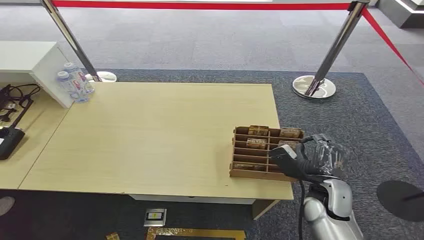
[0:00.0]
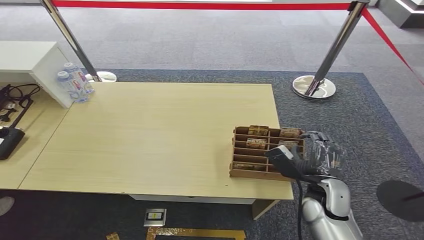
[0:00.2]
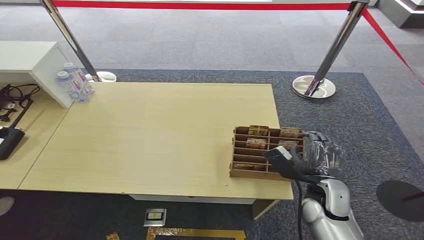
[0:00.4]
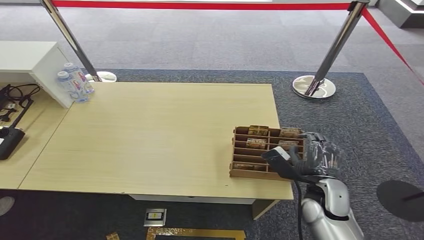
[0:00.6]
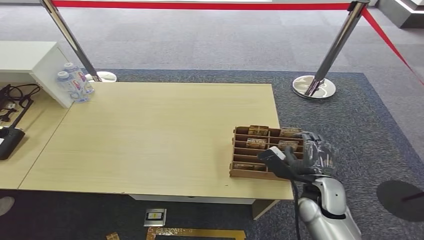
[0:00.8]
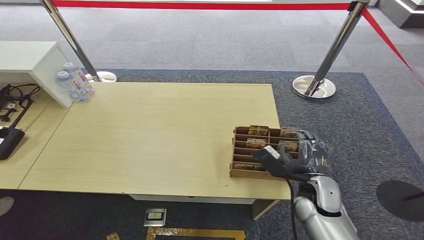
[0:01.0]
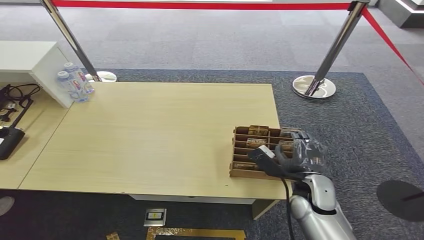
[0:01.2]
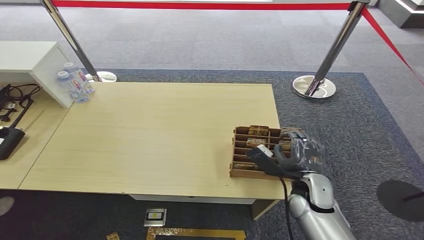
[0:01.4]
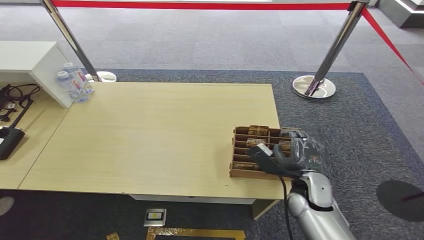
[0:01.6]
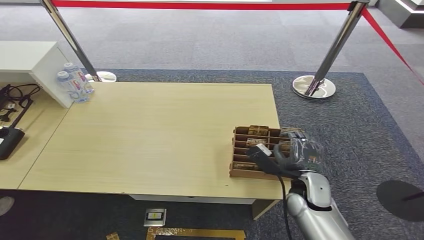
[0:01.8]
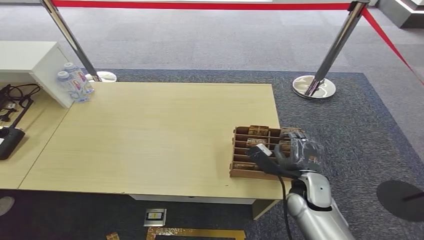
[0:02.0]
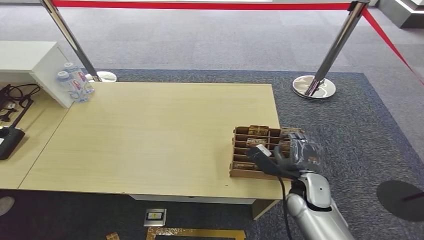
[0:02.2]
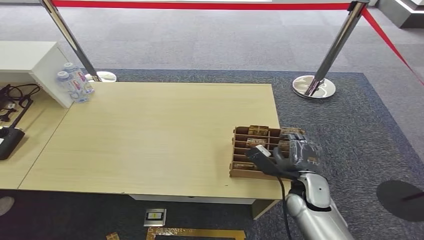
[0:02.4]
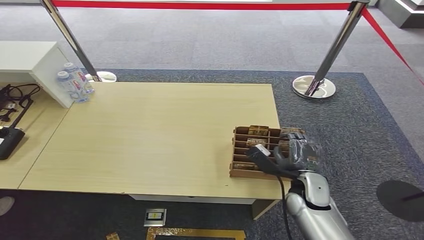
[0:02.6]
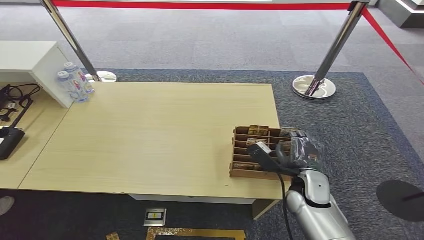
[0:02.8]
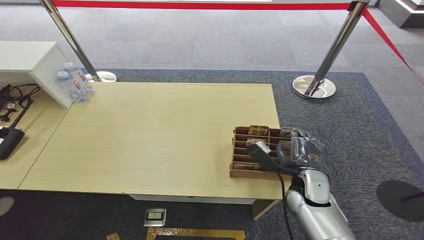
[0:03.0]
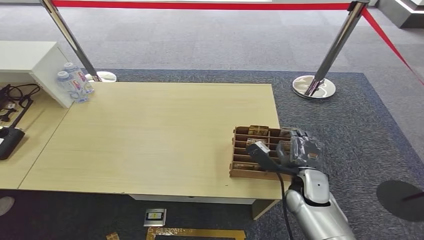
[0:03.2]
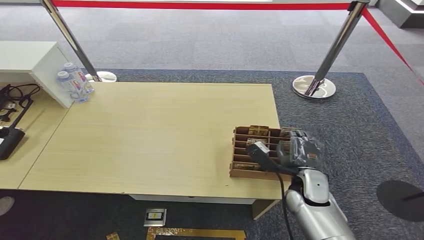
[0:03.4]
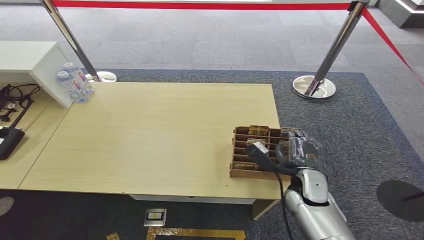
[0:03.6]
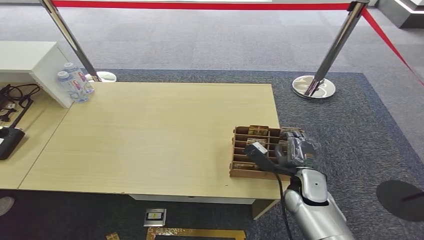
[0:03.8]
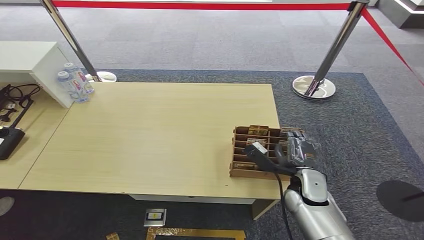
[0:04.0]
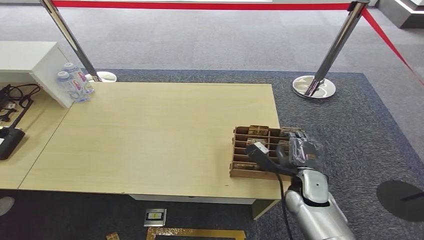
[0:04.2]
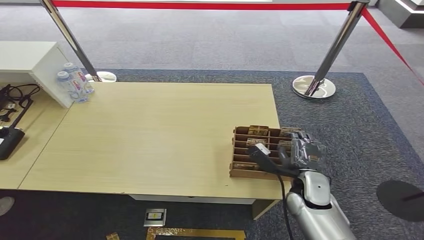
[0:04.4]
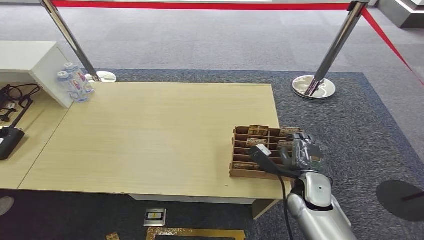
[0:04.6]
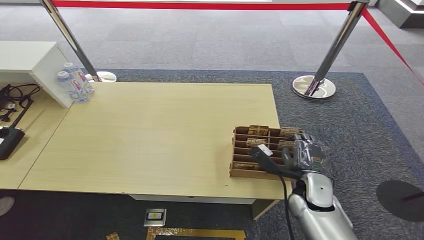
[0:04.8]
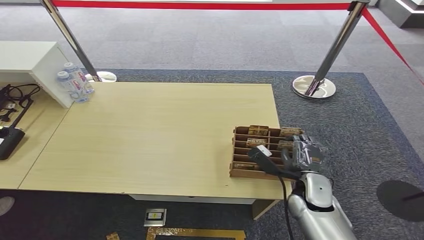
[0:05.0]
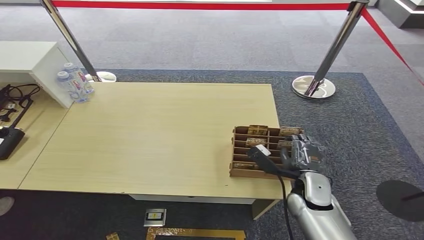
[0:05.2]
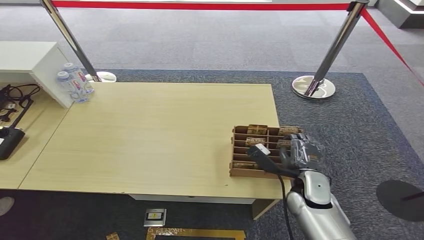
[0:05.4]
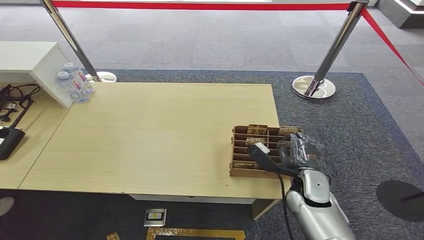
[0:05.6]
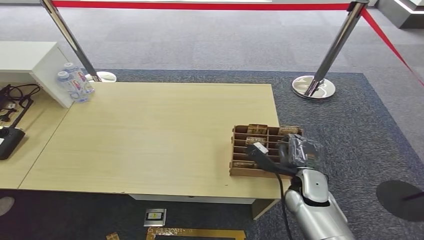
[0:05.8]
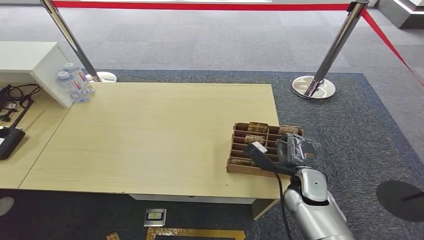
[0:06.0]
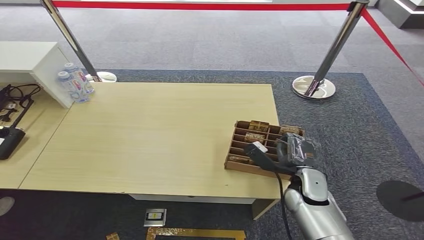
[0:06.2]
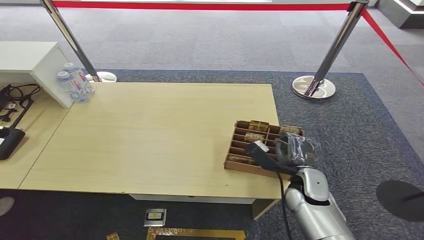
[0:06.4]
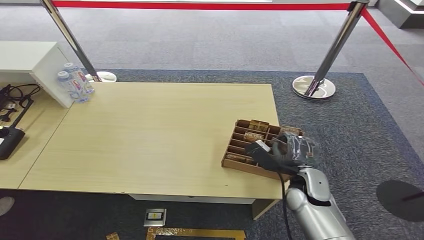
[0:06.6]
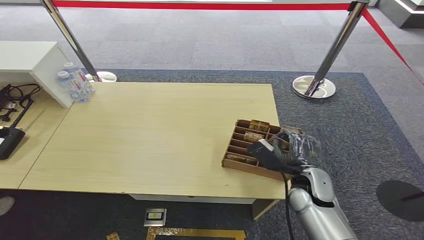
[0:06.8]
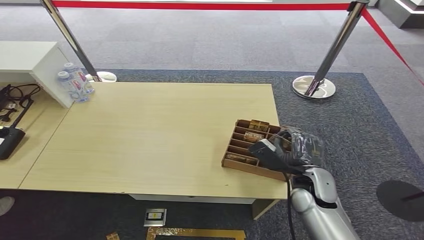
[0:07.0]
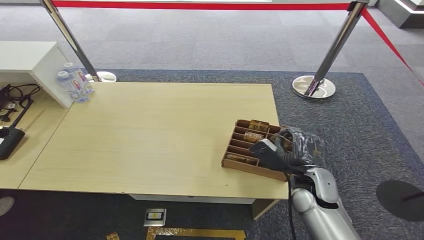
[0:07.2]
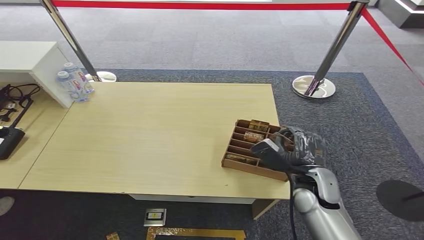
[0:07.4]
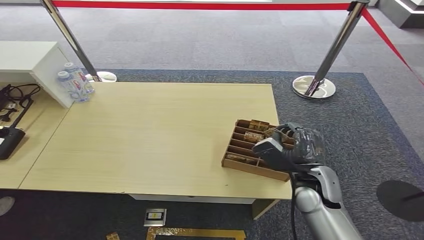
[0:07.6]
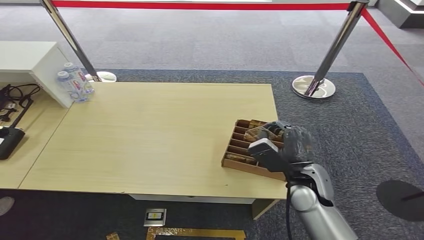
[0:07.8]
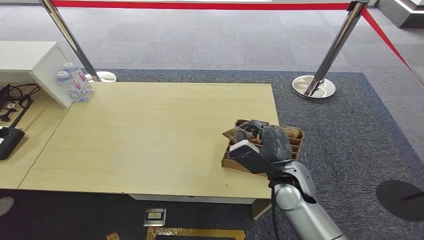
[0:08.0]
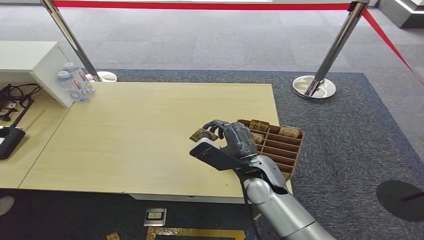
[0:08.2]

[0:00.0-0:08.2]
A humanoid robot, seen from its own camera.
Step, 0:00.0 to 0:08.2: Pick up the key card from the card box.
0:01.6 to 0:05.0: Neither hand changes place.
0:05.0 to 0:06.6: The hands make only small movements.
0:06.6 to 0:08.2: The right hand is displaced to the left and upward by approximately 10 cm.

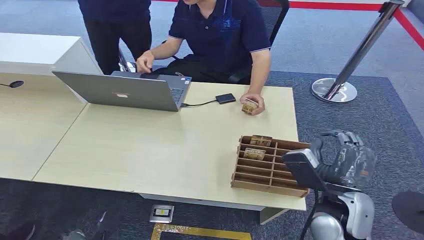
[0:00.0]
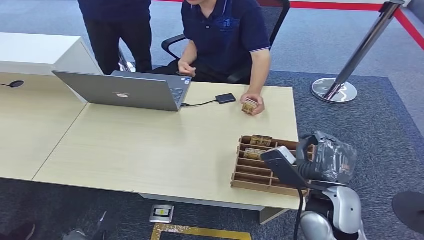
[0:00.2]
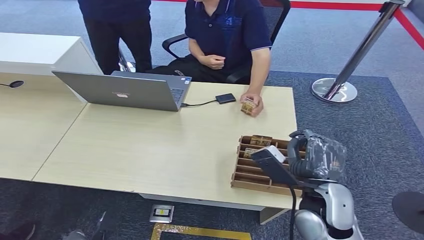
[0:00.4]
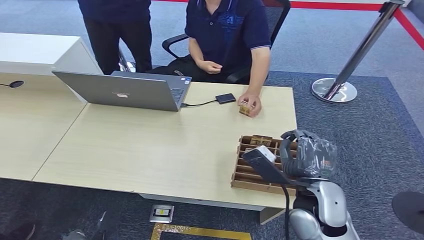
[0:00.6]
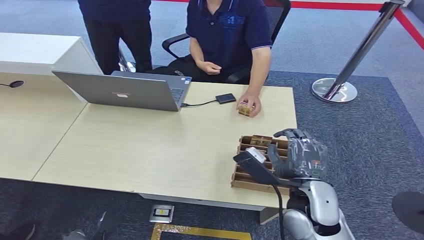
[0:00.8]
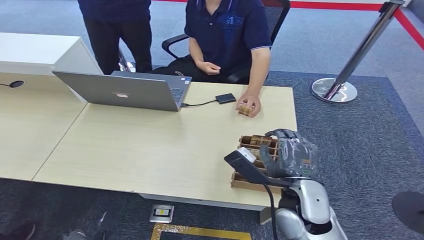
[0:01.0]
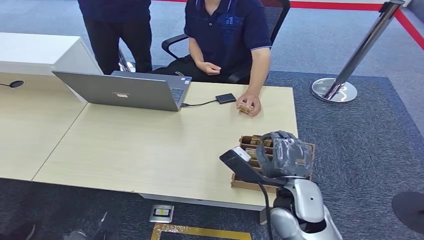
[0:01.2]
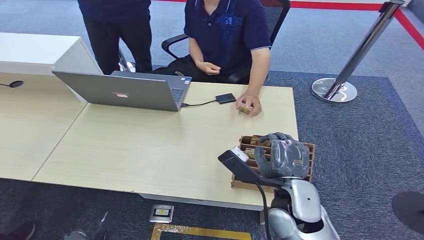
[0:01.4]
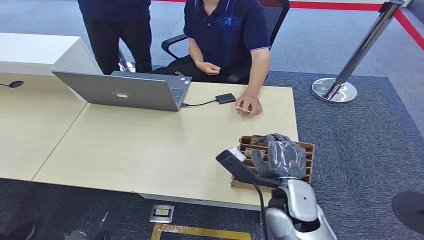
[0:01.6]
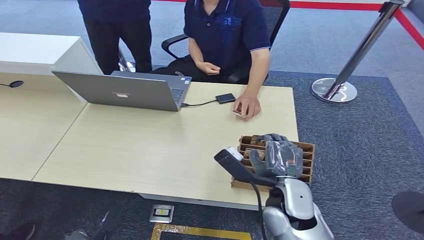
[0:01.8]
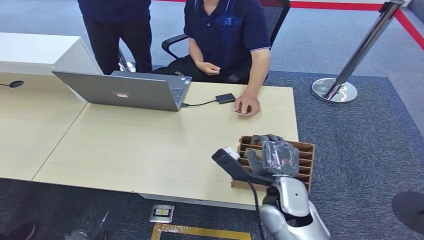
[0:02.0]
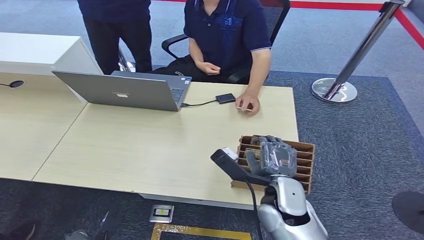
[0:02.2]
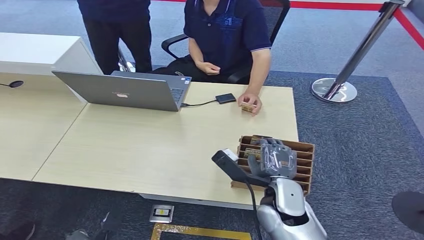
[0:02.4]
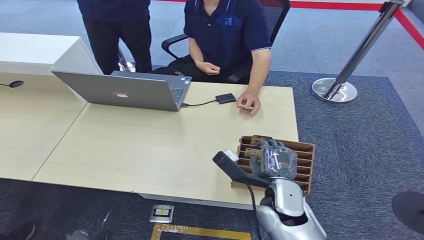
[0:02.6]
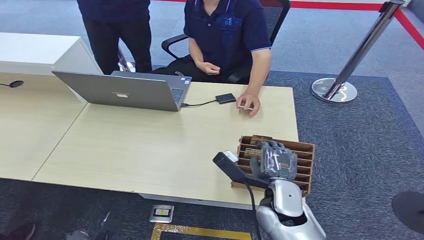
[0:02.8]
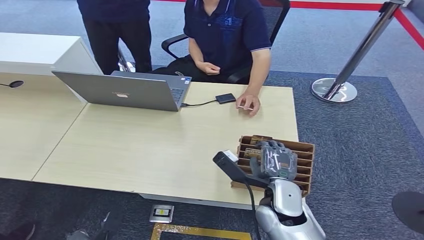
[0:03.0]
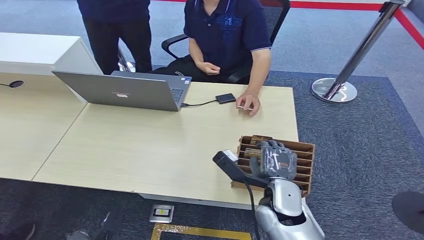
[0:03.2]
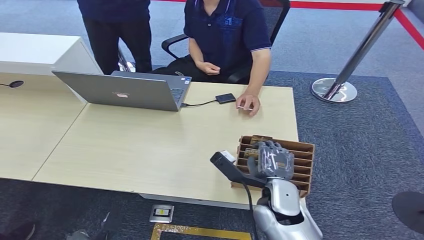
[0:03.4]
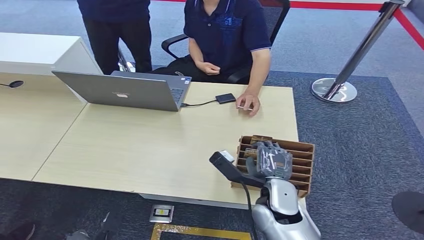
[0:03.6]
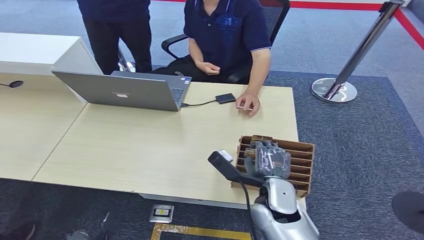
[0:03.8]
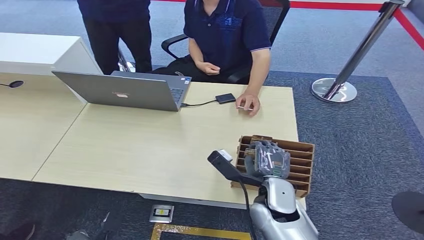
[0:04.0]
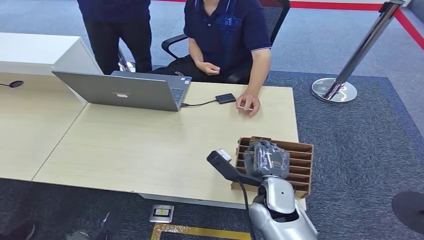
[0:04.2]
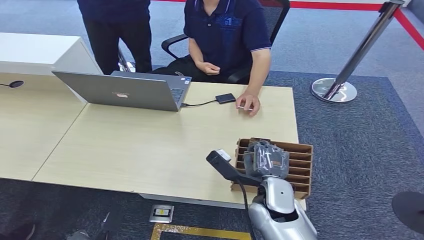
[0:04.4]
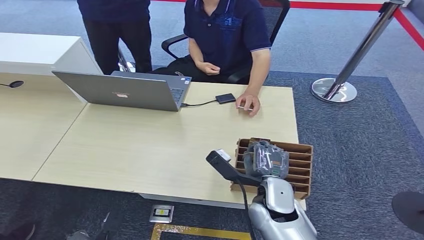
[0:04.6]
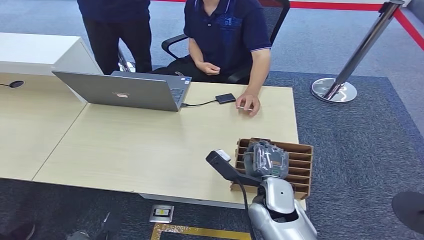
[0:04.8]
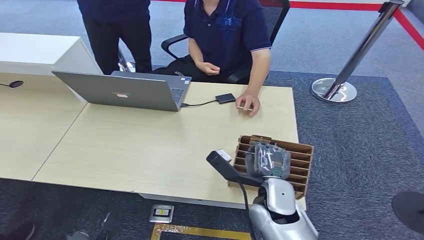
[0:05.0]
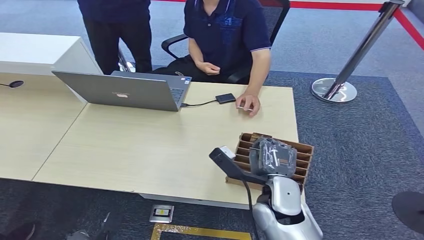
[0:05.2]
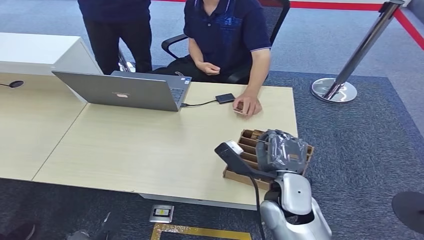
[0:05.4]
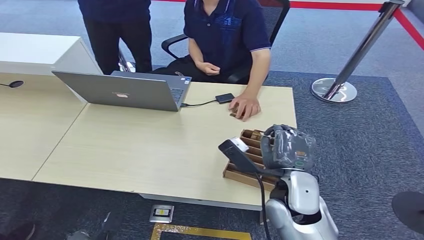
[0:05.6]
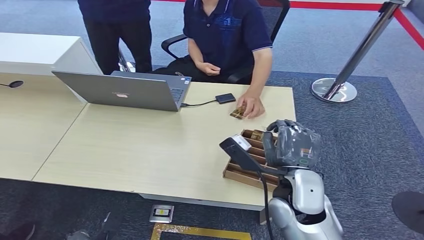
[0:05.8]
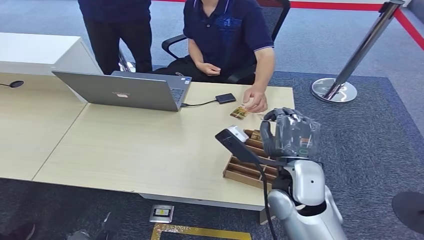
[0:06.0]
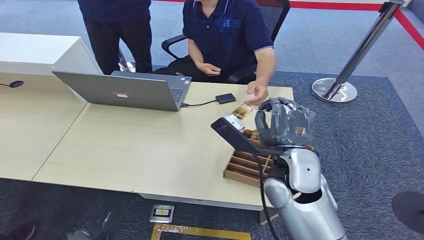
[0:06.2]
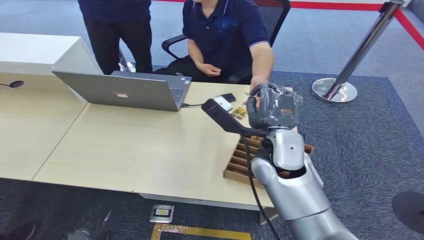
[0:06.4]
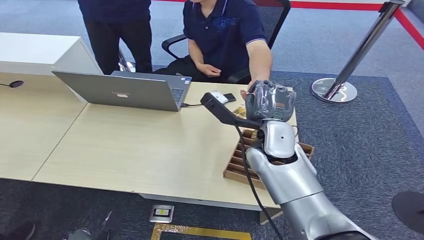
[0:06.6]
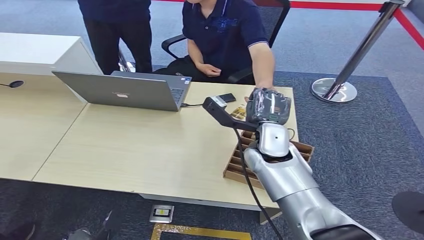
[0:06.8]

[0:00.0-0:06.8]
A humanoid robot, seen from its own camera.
Step, 0:00.0 to 0:04.8: Pick up the key card from the card box.
Step, 0:05.2 to 0:06.8: Hand the key card to the target.
0:01.4 to 0:02.8: The hands move only a little.
0:02.8 to 0:04.0: Both hands stay about where they are.
0:04.0 to 0:05.4: The hands stay close to where they were, moving slightly.
0:05.4 to 0:06.8: The right hand heads forward and upward, covering some 15 cm.

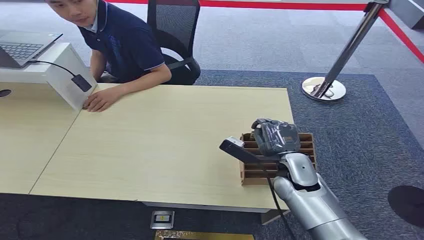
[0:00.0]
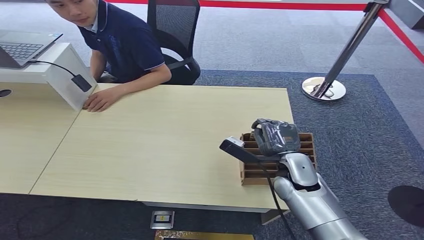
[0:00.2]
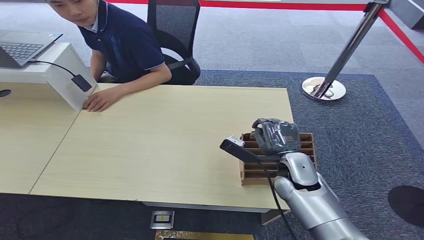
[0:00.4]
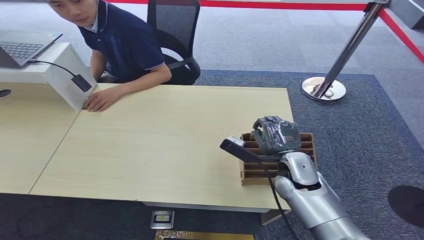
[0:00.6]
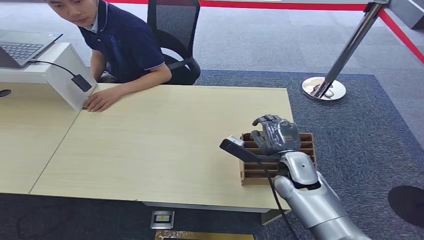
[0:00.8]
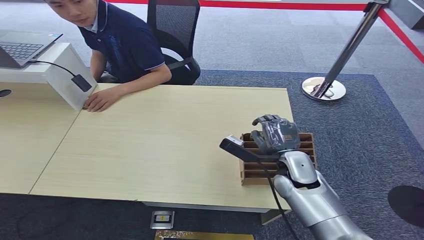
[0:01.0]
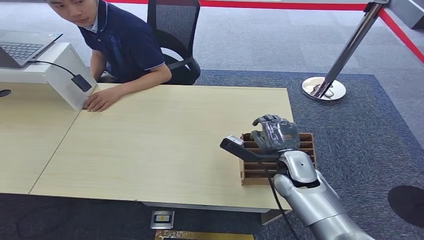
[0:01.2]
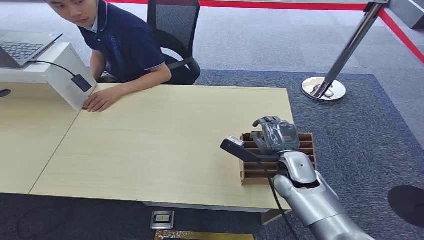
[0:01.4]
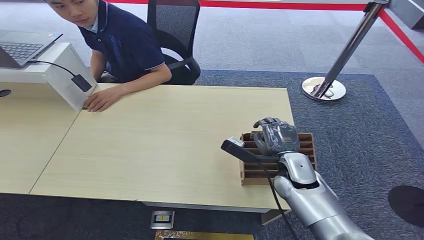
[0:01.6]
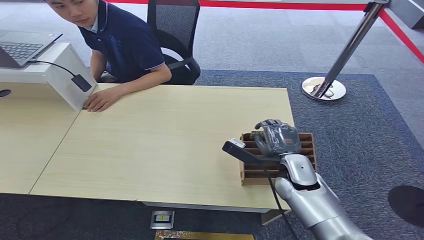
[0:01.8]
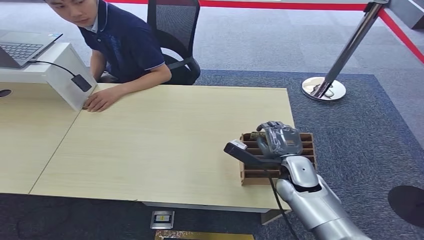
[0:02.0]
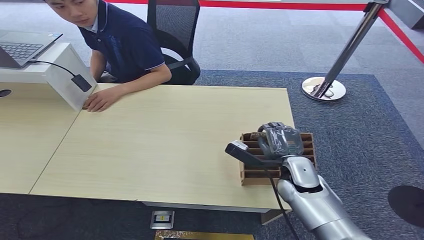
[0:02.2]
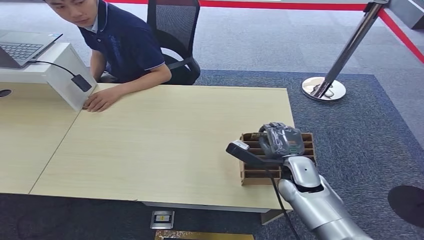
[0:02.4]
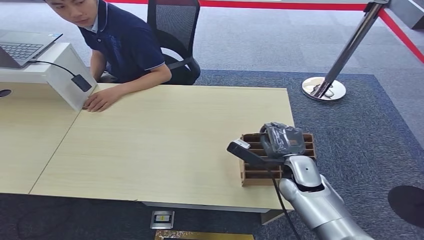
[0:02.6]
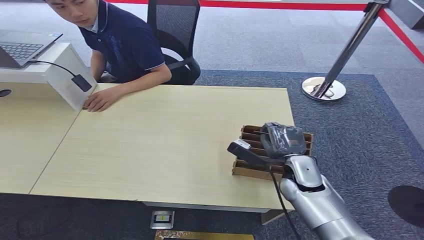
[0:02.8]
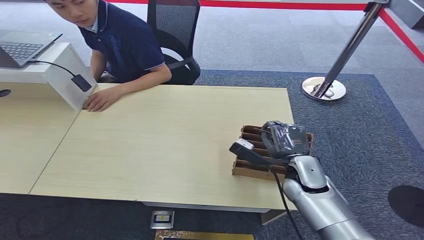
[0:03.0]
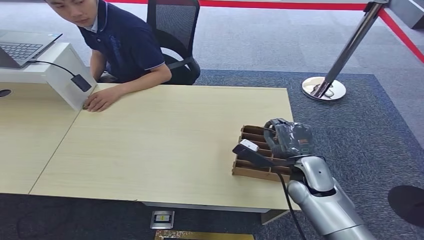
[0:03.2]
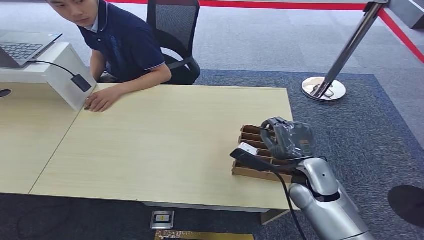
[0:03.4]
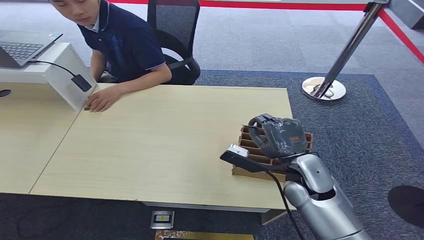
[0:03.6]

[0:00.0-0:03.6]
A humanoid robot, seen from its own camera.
0:01.8 to 0:03.6: The right hand moves upward, some 5 cm.
